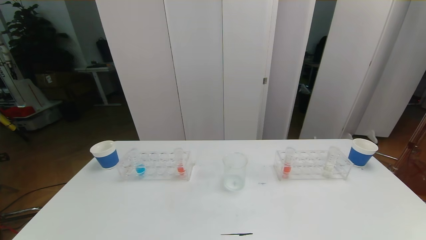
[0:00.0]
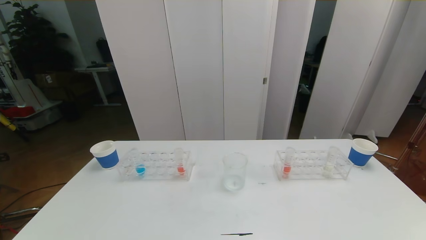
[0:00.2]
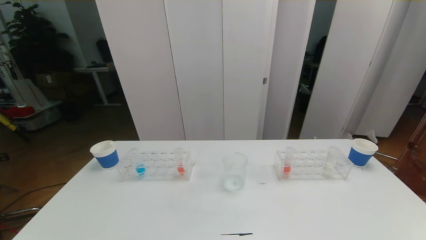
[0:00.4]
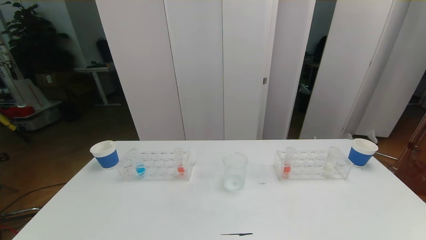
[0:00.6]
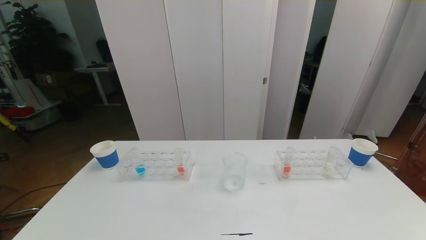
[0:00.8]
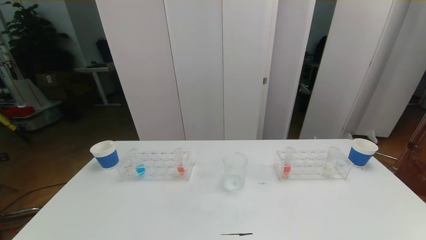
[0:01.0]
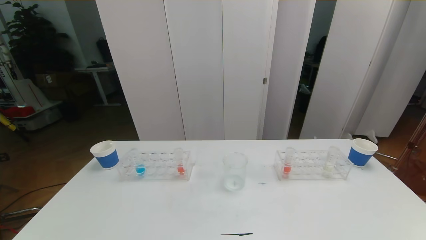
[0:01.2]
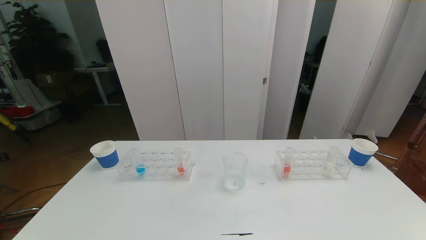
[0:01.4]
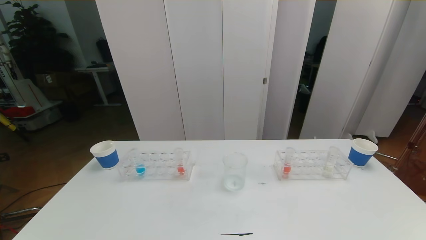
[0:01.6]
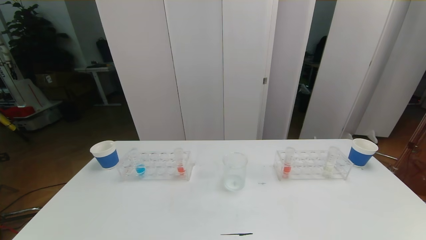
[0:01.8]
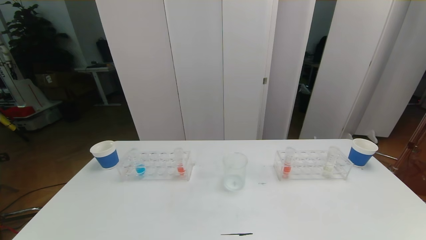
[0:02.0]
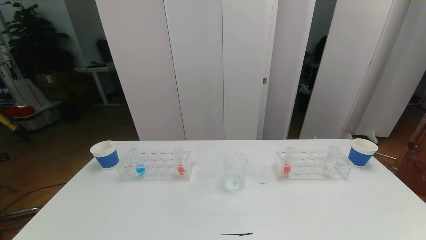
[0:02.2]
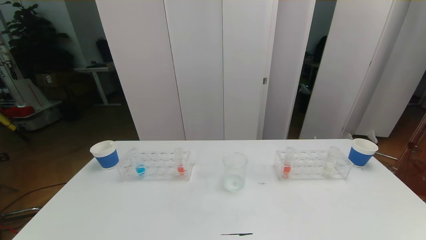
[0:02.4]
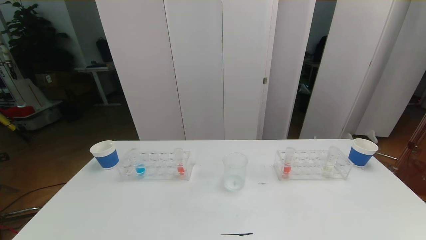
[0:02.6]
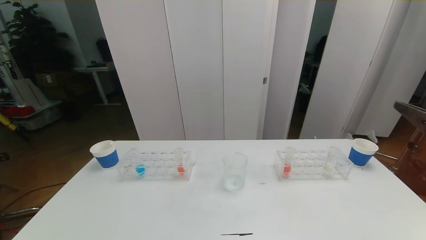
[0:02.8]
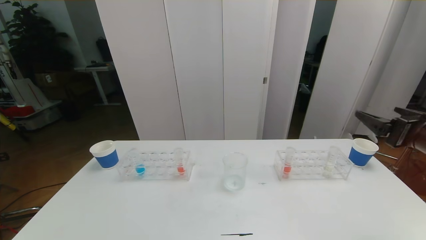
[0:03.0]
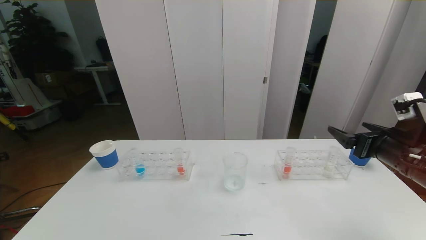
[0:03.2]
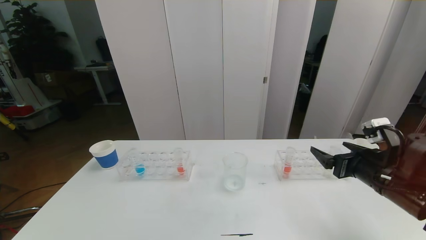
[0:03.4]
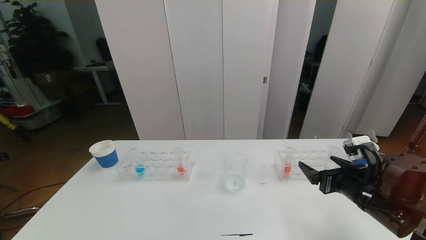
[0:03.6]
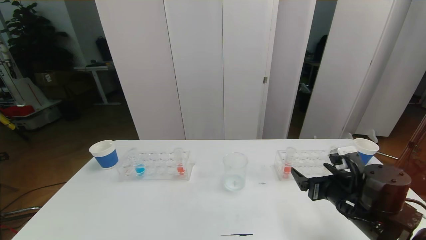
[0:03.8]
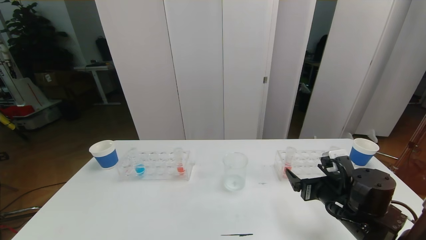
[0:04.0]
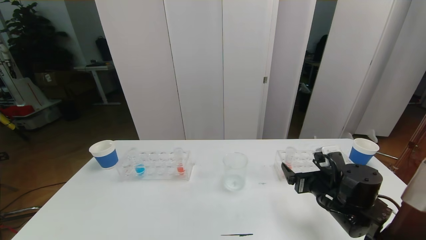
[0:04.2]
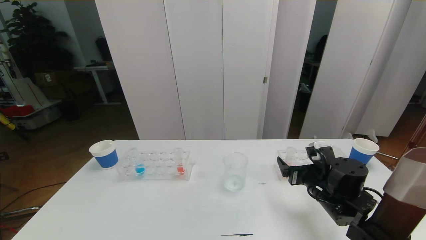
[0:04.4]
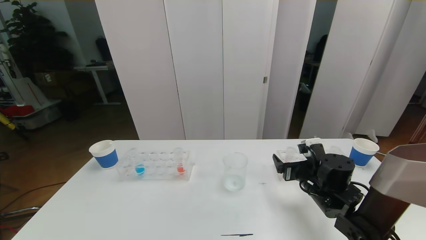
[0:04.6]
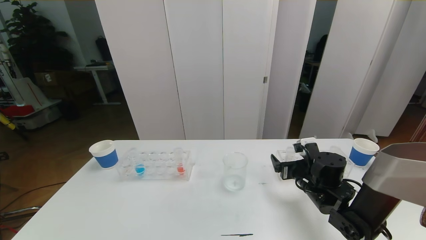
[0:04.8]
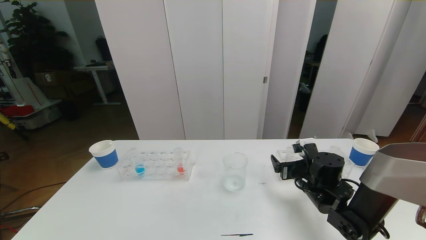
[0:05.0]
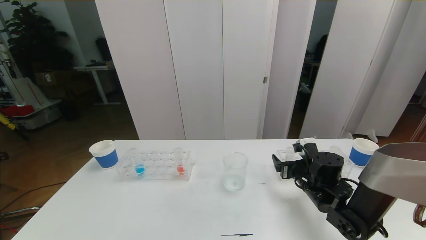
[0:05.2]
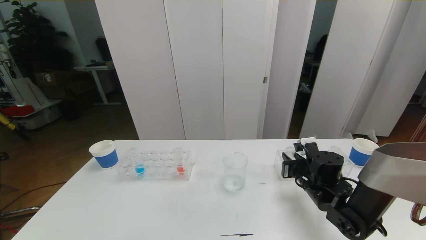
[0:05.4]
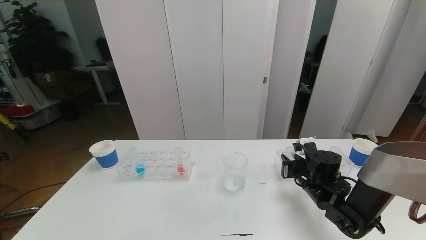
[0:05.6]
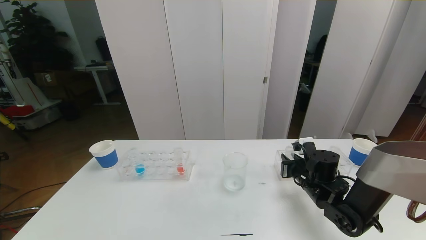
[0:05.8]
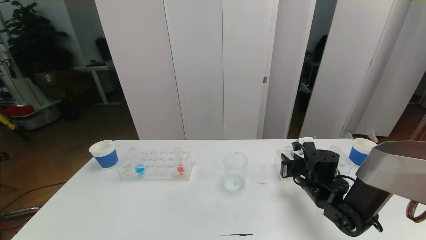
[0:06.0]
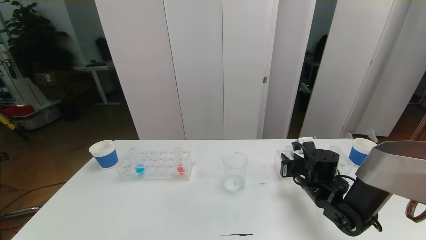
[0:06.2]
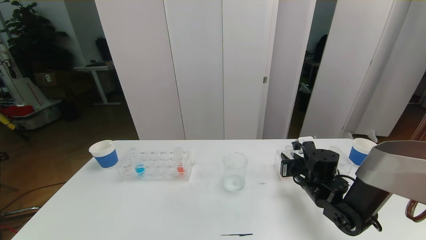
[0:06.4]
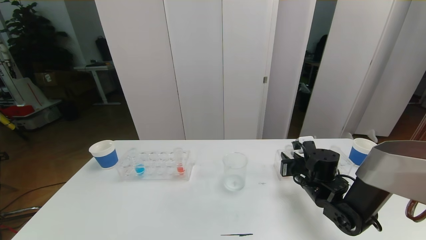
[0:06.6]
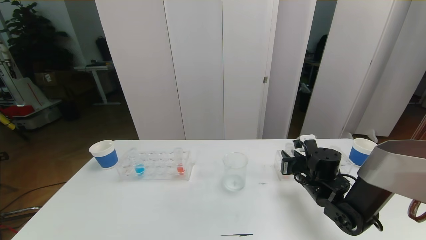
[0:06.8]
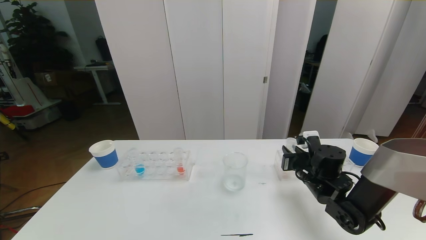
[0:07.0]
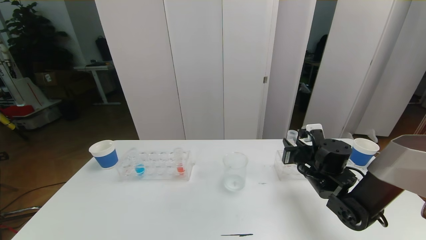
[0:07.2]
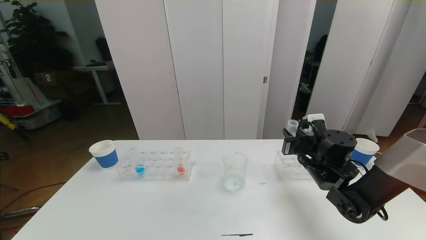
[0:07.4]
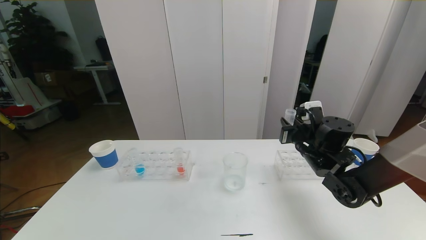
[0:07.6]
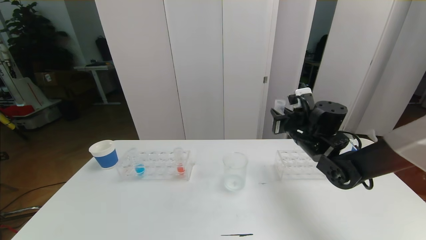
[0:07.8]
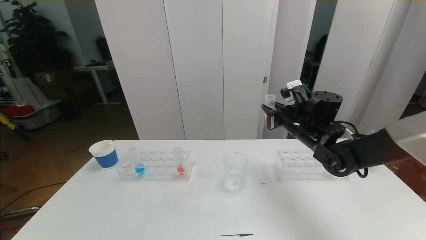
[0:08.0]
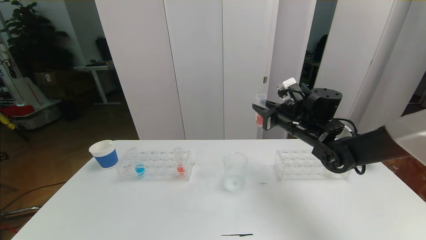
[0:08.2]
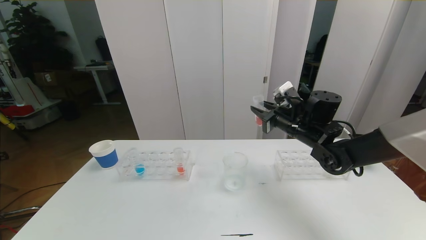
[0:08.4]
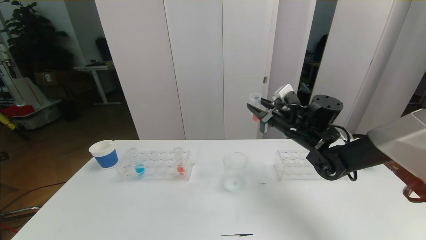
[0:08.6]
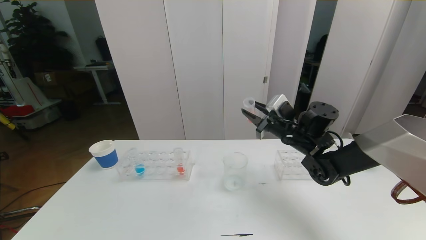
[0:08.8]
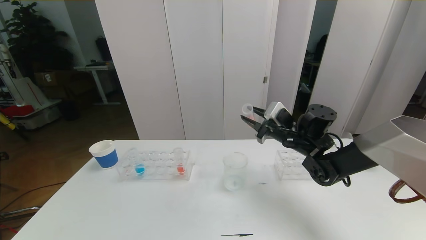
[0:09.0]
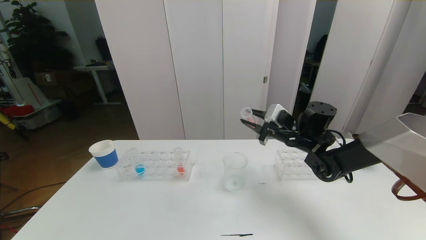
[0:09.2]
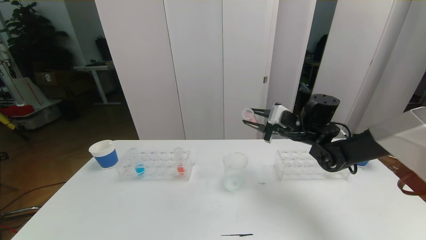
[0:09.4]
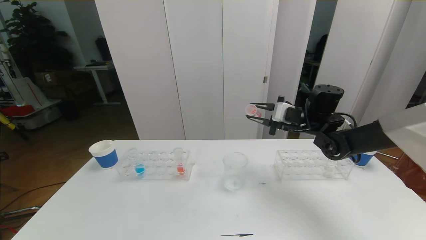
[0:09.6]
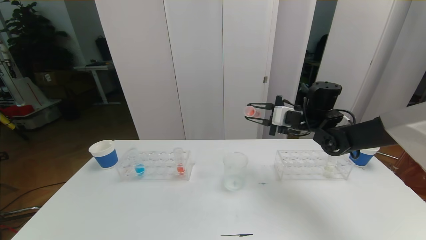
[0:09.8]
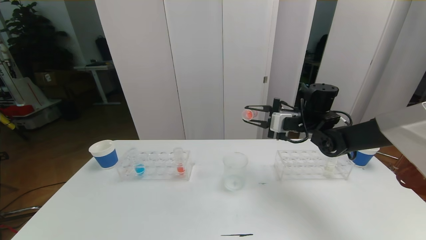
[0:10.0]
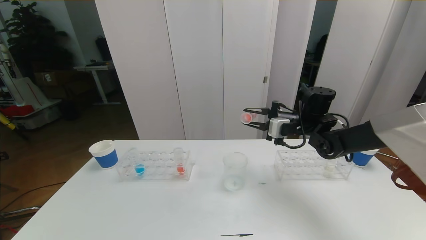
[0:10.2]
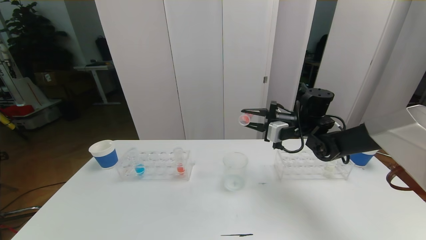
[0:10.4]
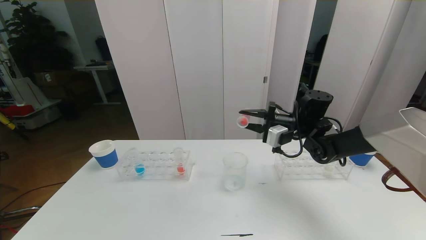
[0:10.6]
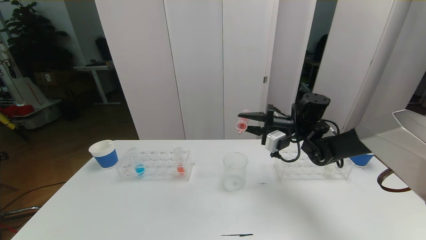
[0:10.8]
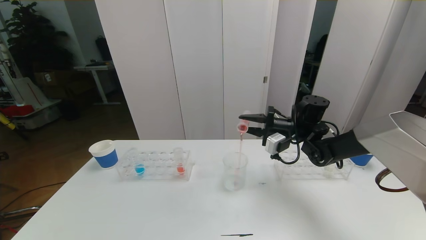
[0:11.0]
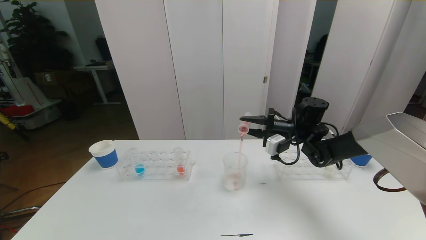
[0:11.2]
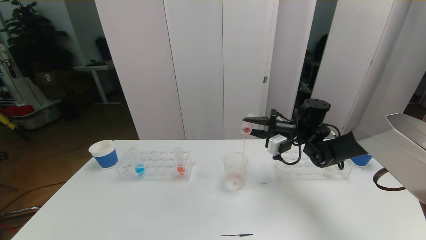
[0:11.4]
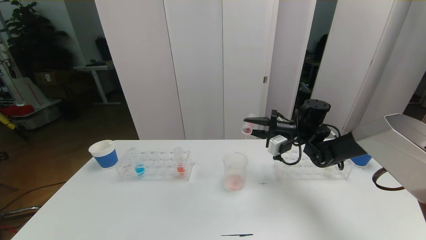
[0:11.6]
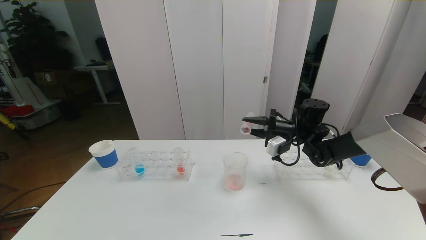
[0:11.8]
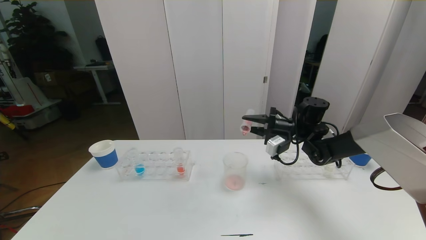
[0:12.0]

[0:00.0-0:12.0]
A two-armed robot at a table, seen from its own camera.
Task of the whole recording: pick up the test tube with red pigment the test tube with blue pigment and the test tube with white pigment by grippers and pour them into the beaker.
0:01.6 to 0:03.0: The right gripper goes some 30 cm forward and upward.
0:03.0 to 0:04.4: The right gripper is displaced downward, to the left and forward by roughly 20 cm.
0:04.4 to 0:06.0: The right gripper shifts by roughly 5 cm, and closes.
0:06.0 to 0:07.6: The right gripper heads upward, covering roughly 10 cm.
0:10.4 to 0:12.0: The grippers move only a little.

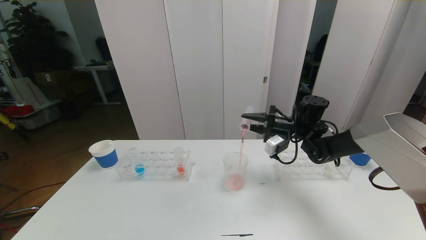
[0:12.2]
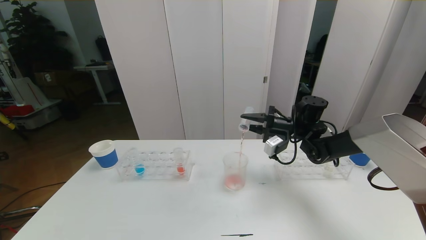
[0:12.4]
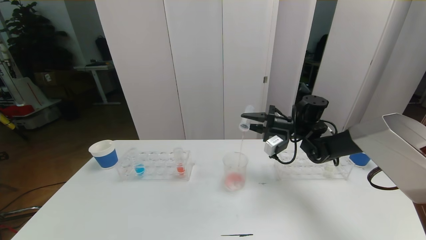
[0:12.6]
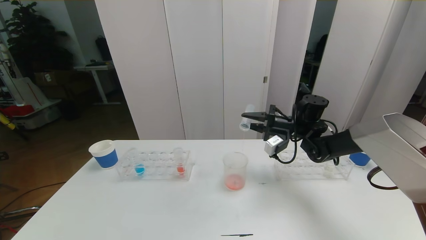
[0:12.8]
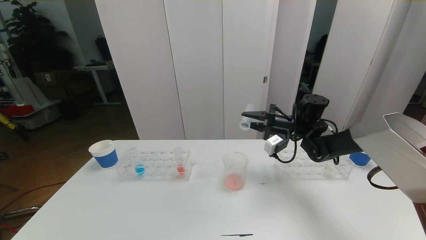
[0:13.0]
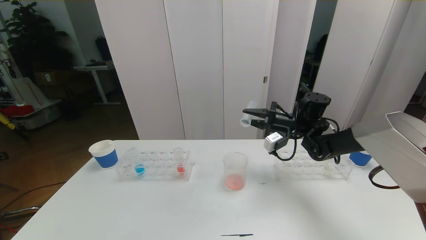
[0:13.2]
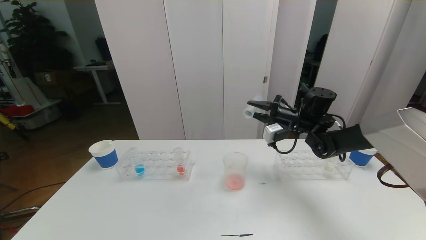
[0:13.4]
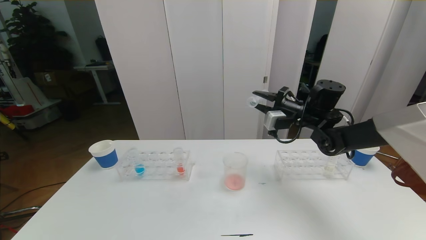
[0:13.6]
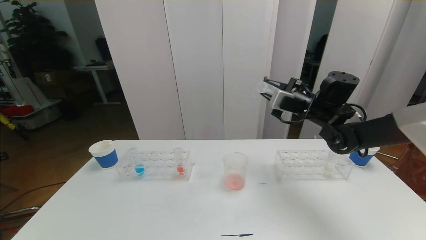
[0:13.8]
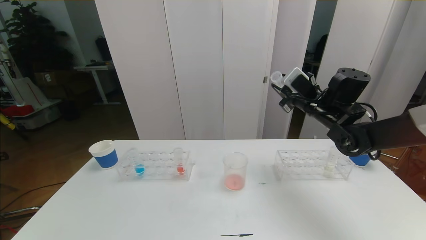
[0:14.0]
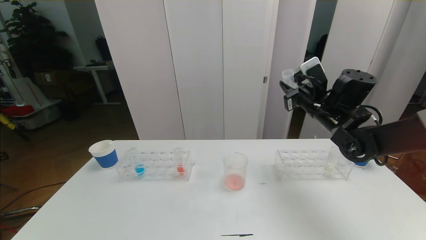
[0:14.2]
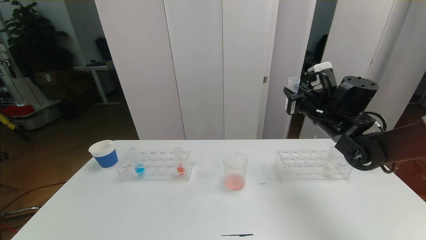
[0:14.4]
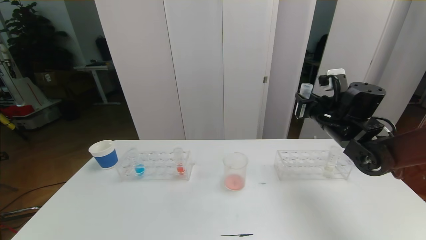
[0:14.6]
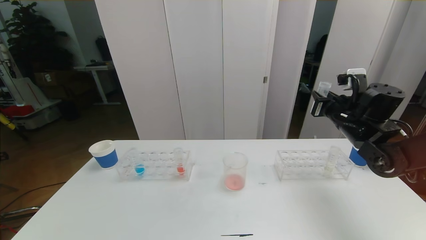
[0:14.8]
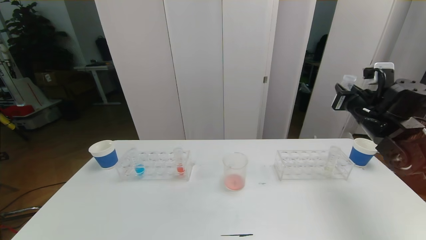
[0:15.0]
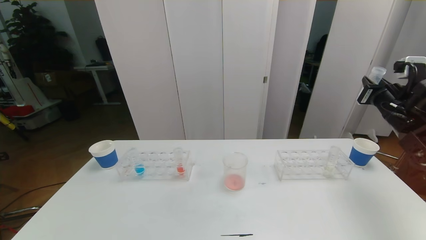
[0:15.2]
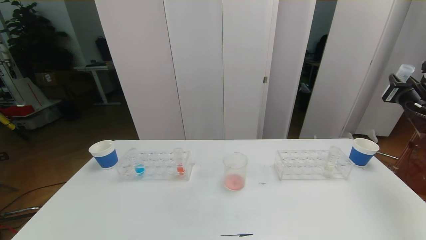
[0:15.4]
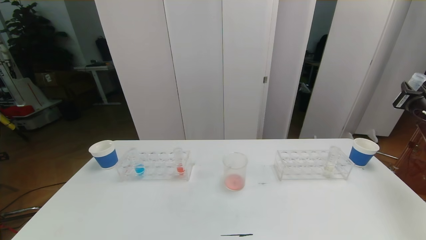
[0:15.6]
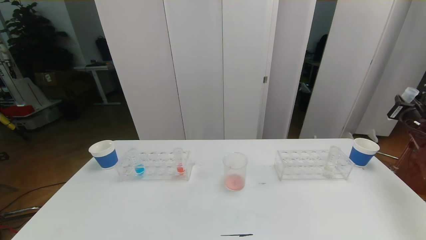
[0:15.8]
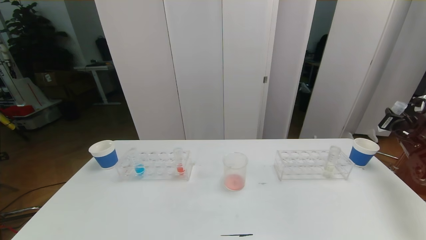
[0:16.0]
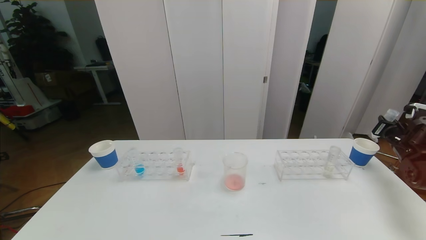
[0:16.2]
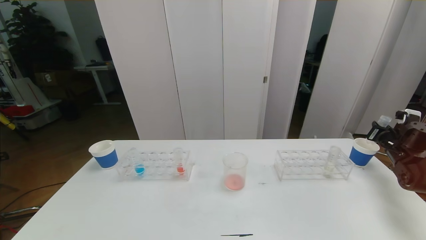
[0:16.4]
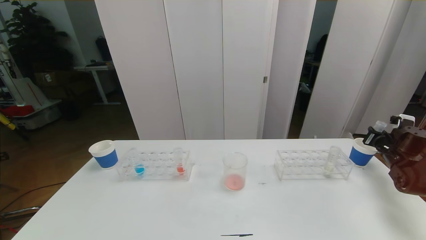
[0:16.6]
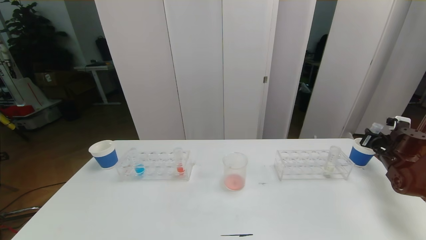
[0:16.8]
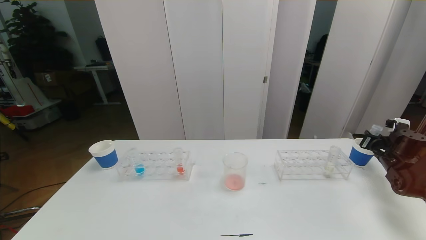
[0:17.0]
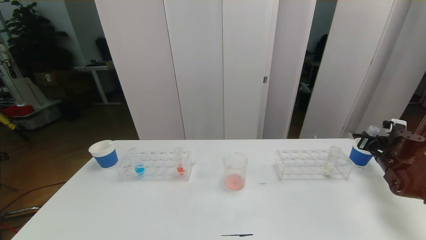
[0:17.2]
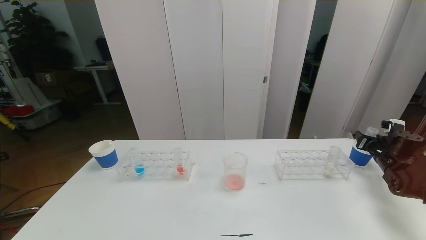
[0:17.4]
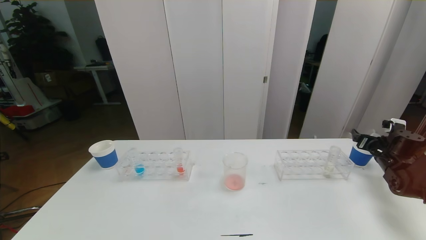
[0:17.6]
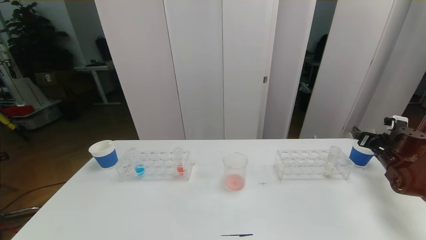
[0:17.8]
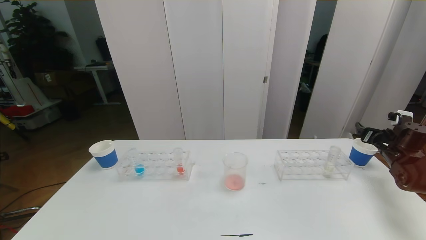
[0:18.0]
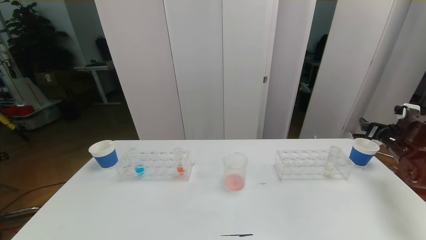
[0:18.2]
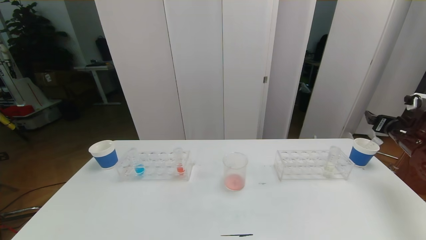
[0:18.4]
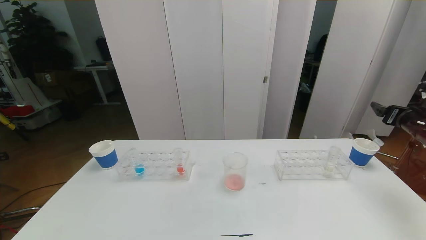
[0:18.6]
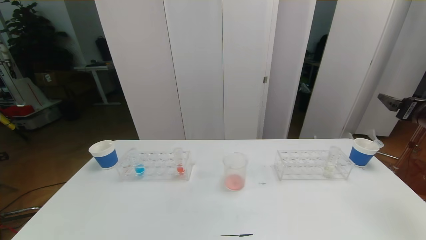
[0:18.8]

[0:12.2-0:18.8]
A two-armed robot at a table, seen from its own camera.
Task of the whole recording: pick up the test tube with red pigment the test tube with blue pigment and the test tube with white pigment by grippers and pour them into the beaker.
0:12.2 to 0:13.8: The right gripper moves upward, roughly 5 cm.
0:13.8 to 0:15.4: The right gripper goes roughly 20 cm to the right.
0:15.4 to 0:17.2: The right gripper heads downward, covering about 15 cm.
0:17.2 to 0:18.8: The right gripper goes approximately 20 cm upward and backward, and opens.
